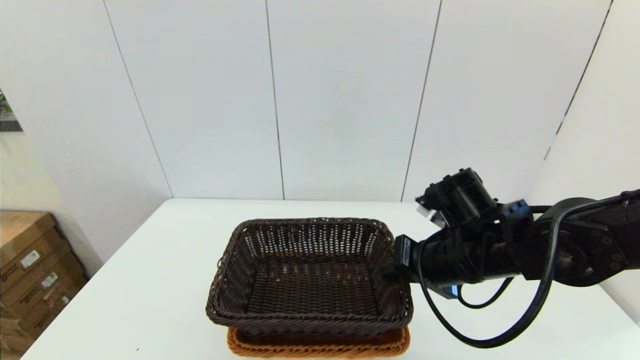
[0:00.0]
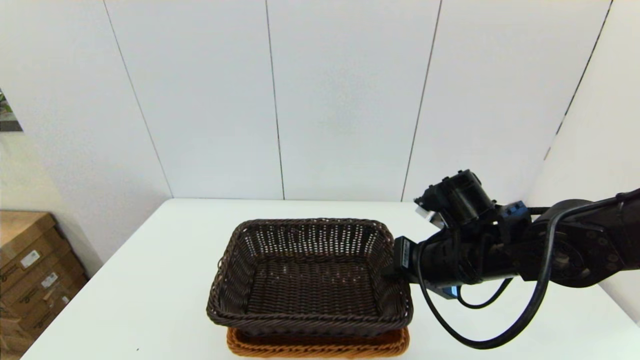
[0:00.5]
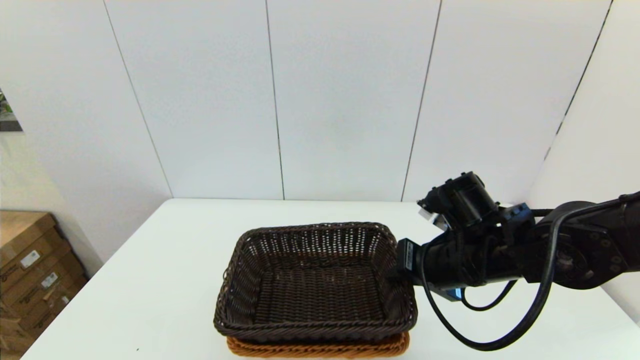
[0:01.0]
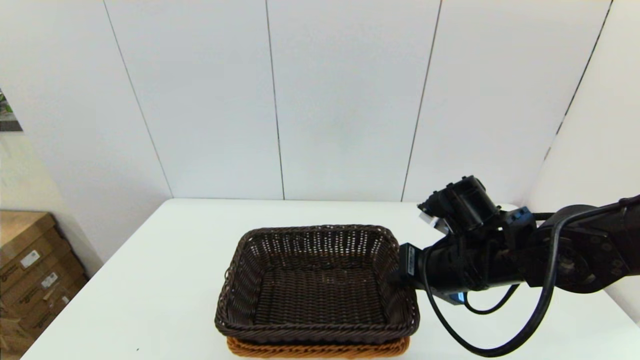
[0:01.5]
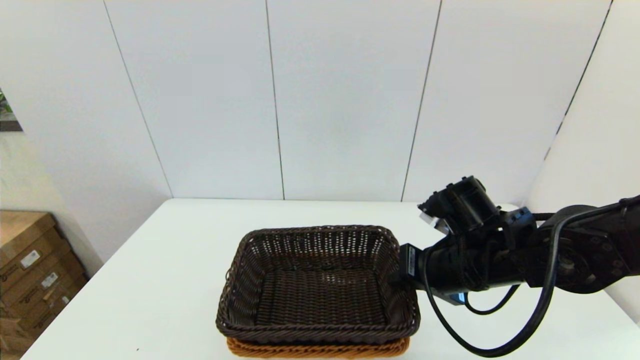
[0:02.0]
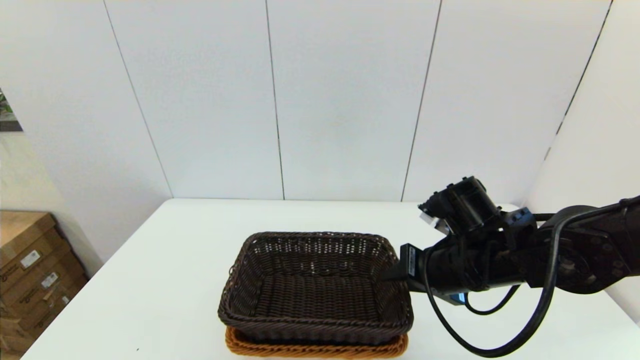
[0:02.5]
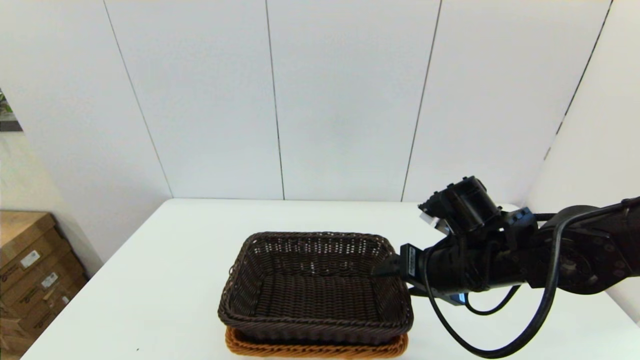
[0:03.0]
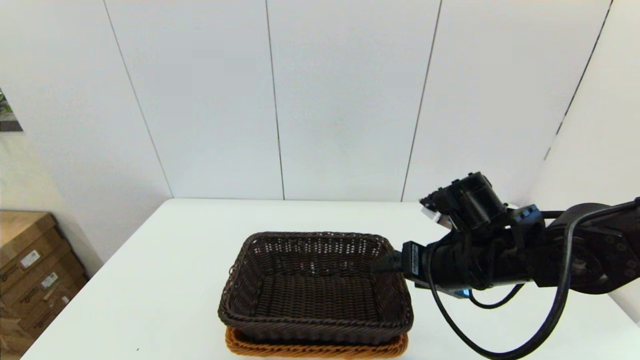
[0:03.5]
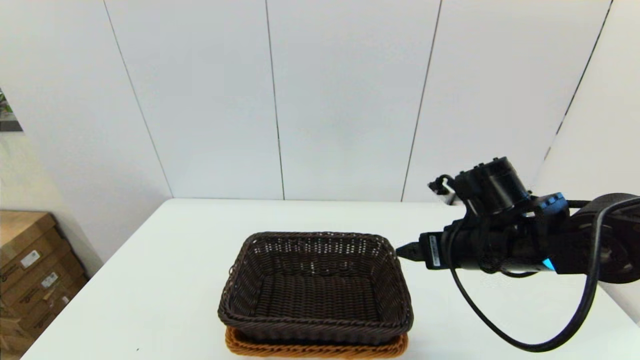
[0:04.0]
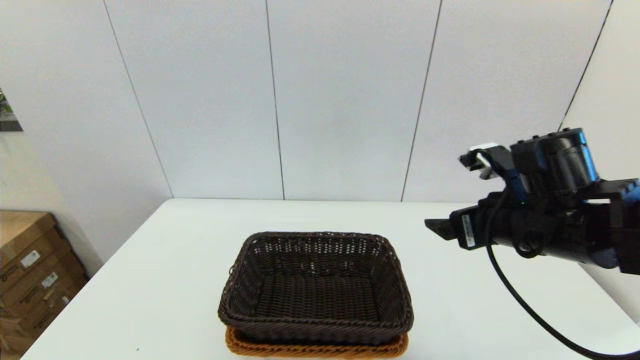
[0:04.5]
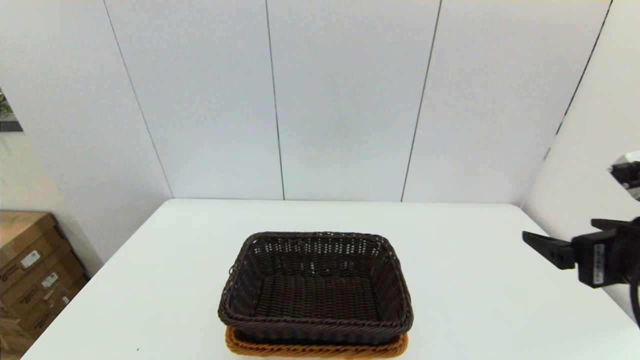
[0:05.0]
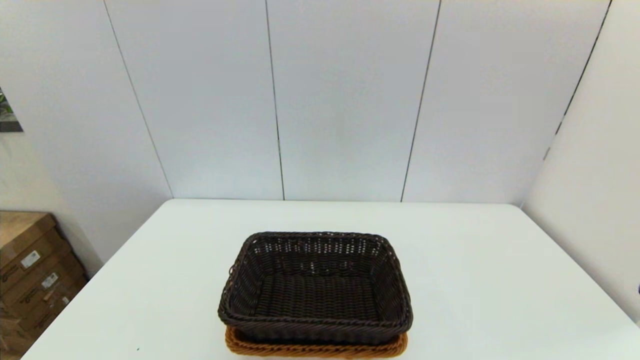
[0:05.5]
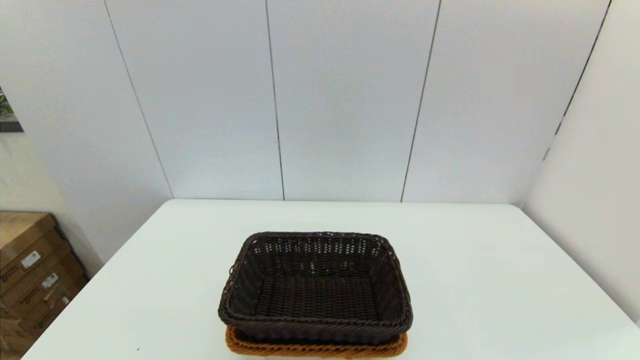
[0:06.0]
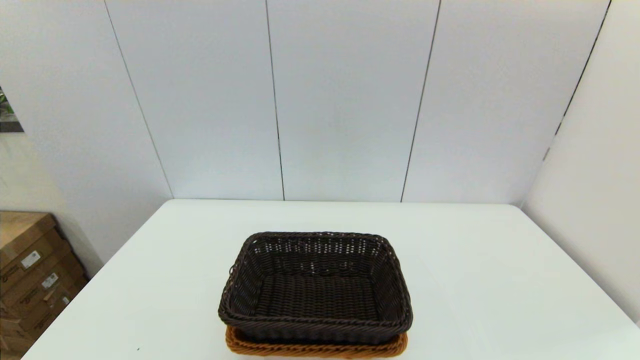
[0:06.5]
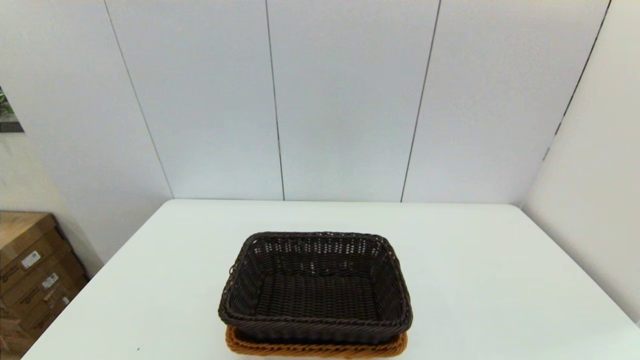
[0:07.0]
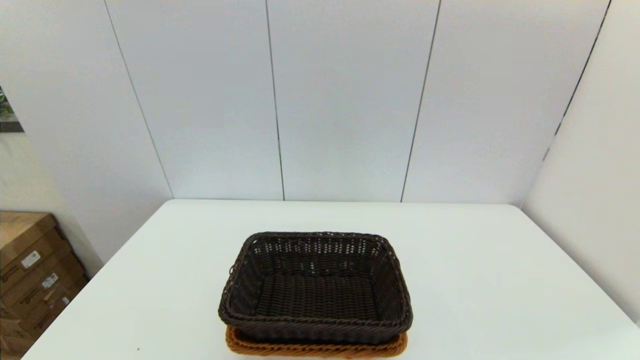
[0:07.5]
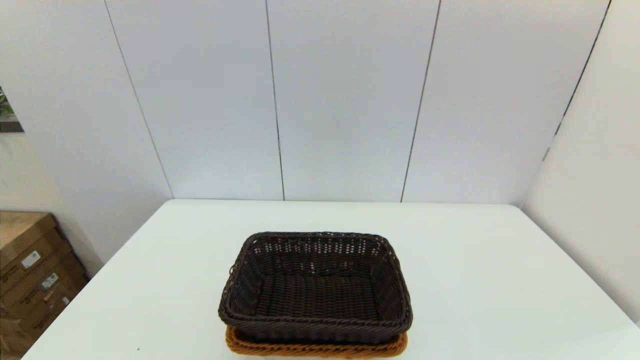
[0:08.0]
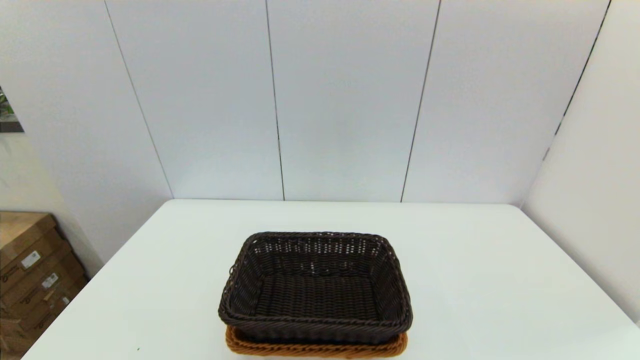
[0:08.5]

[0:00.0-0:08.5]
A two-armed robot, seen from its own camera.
Task of the whole recording: stack a basket on top of another basket.
Step, 0:00.0 to 0:04.0: Place the dark basket into the light color basket with the right gripper.
0:00.0 to 0:02.0: Both grippers stay about where they are.
0:02.0 to 0:04.0: The right gripper opens its fingers.
0:04.0 to 0:06.5: The right gripper moves backward and to the right, approximately 30 cm.
